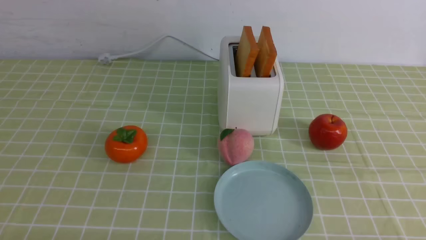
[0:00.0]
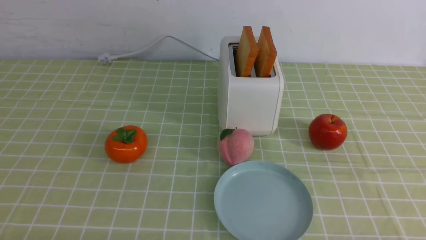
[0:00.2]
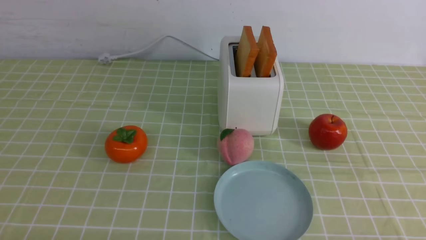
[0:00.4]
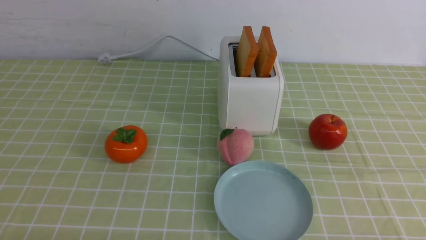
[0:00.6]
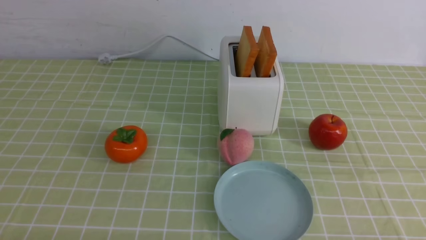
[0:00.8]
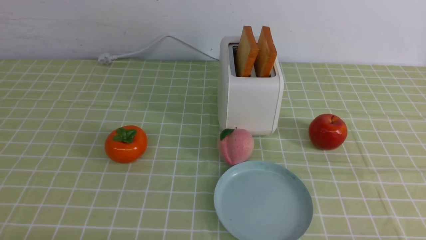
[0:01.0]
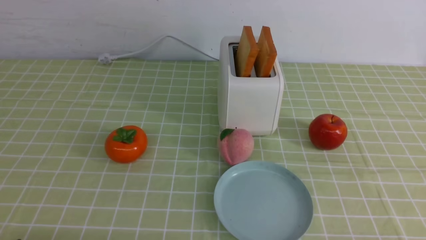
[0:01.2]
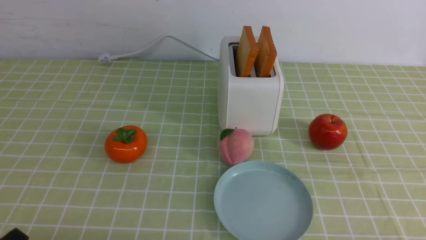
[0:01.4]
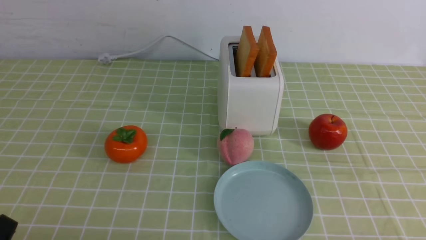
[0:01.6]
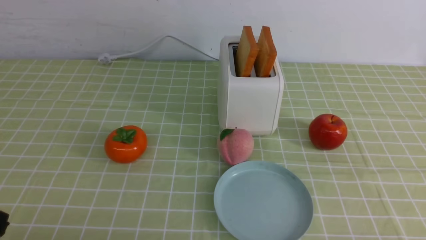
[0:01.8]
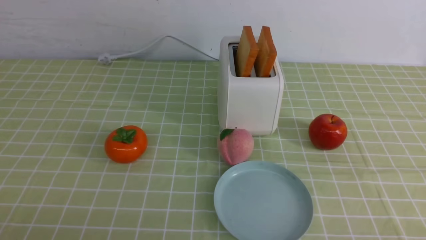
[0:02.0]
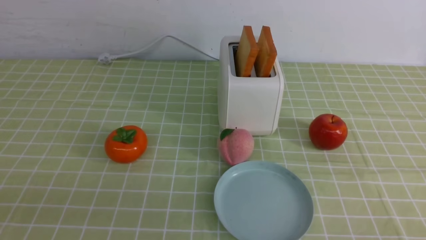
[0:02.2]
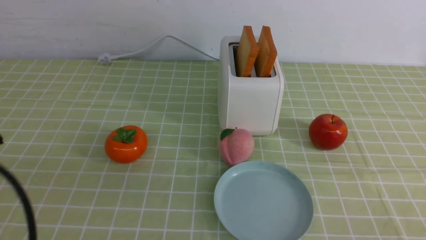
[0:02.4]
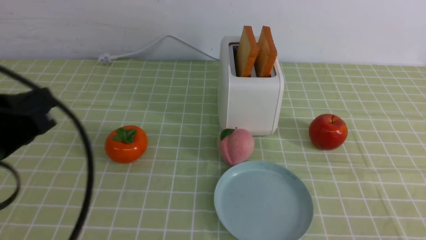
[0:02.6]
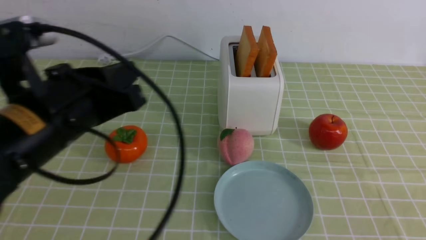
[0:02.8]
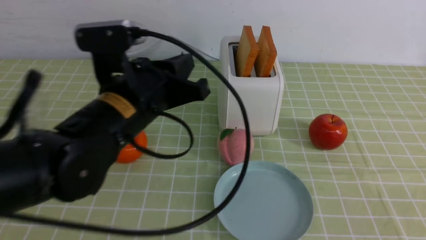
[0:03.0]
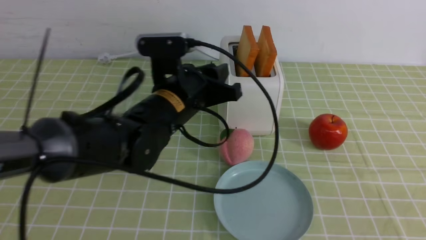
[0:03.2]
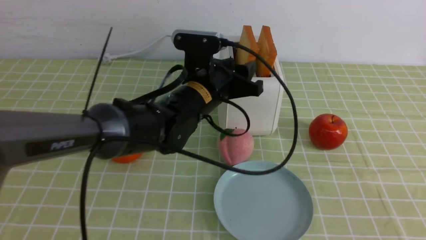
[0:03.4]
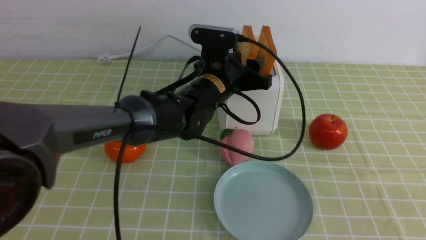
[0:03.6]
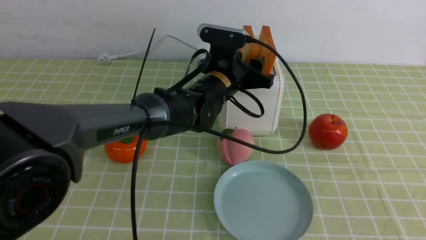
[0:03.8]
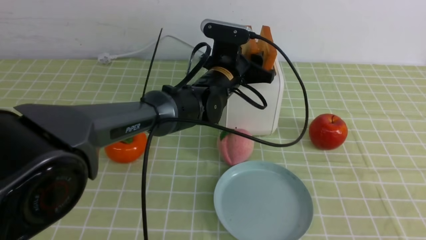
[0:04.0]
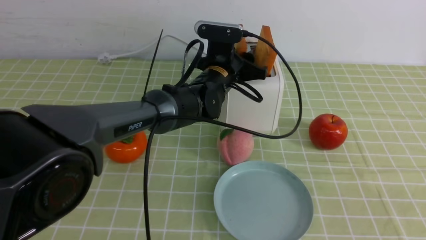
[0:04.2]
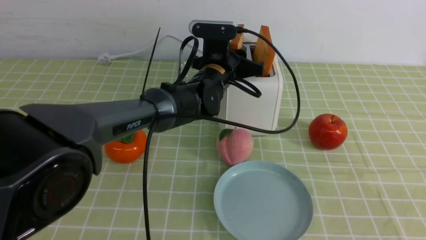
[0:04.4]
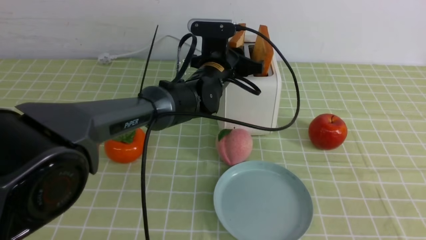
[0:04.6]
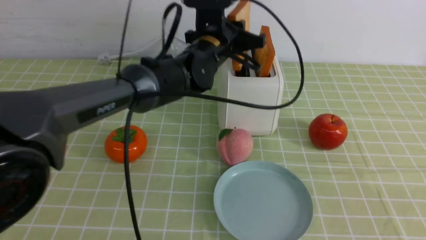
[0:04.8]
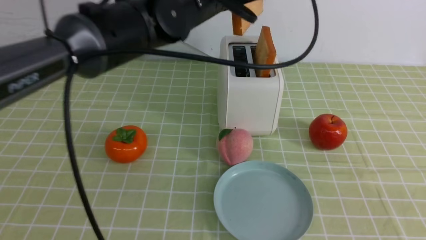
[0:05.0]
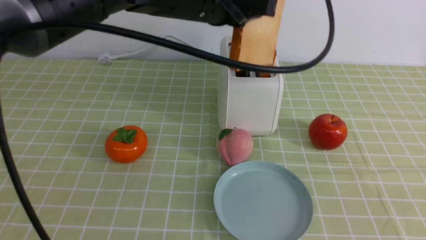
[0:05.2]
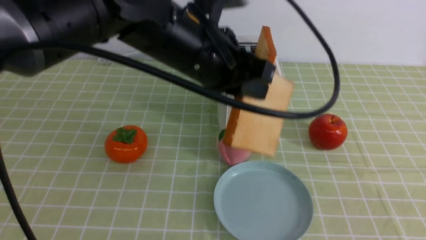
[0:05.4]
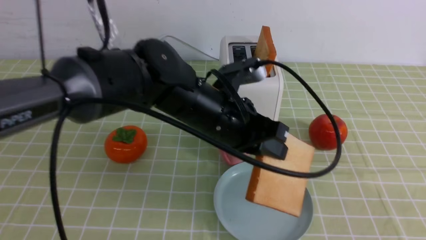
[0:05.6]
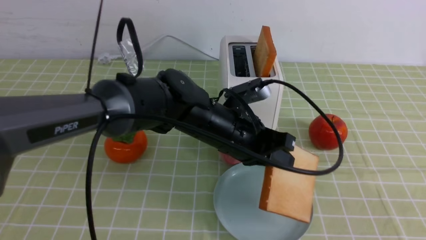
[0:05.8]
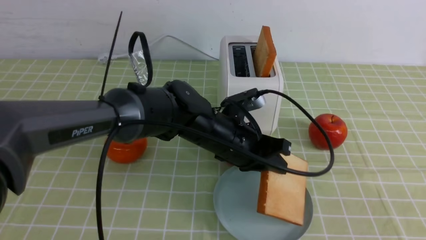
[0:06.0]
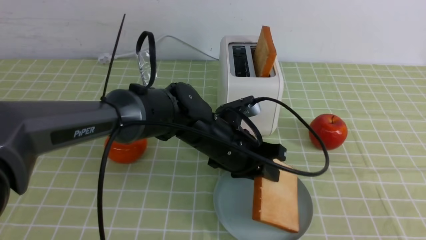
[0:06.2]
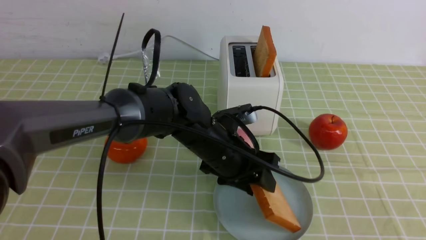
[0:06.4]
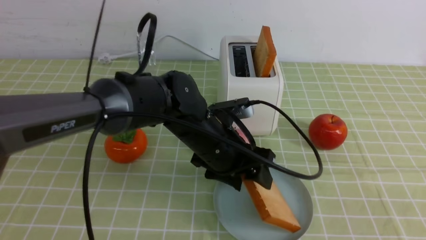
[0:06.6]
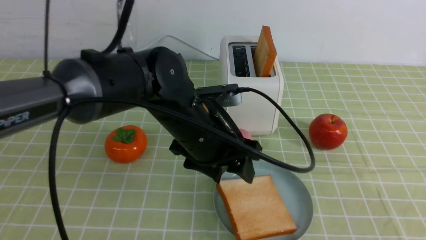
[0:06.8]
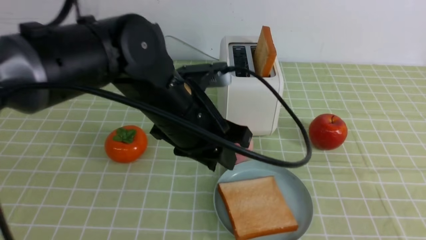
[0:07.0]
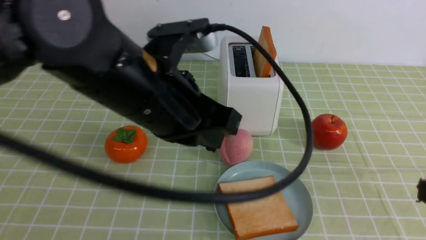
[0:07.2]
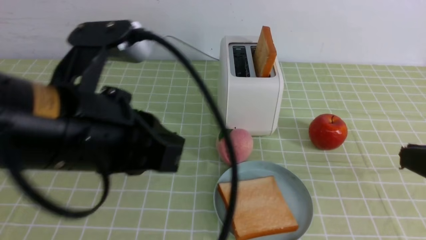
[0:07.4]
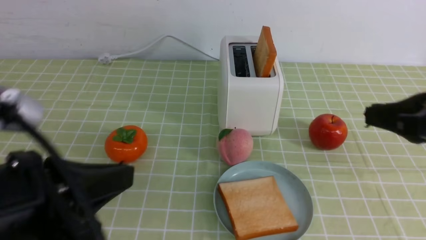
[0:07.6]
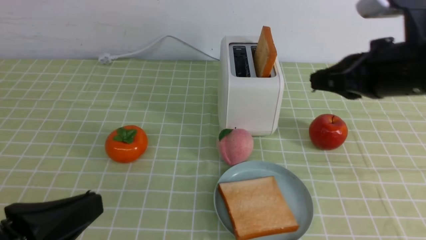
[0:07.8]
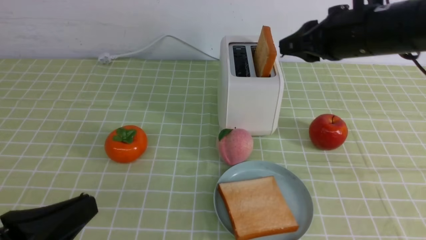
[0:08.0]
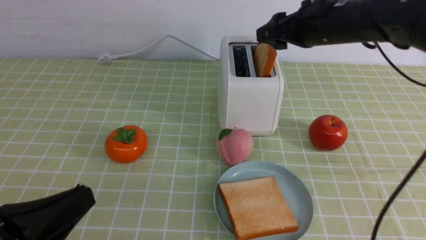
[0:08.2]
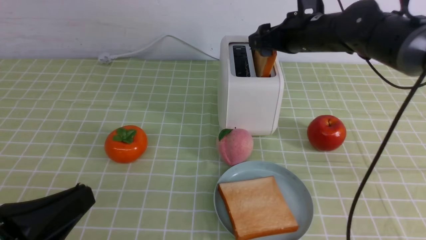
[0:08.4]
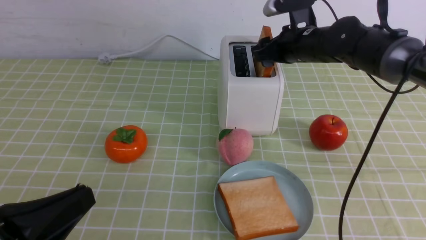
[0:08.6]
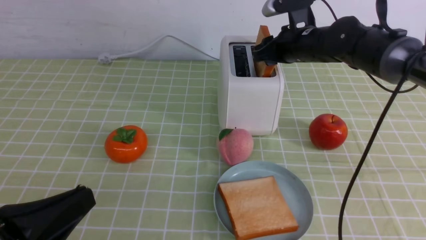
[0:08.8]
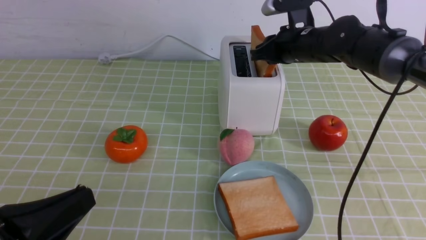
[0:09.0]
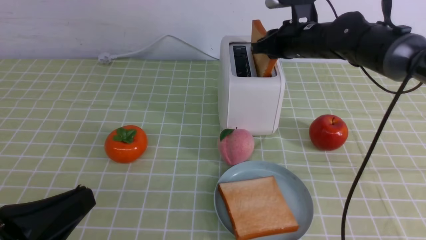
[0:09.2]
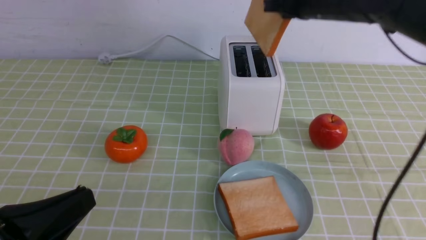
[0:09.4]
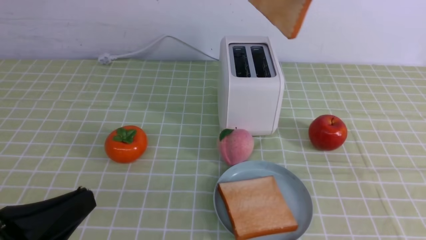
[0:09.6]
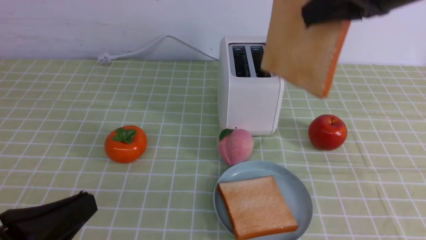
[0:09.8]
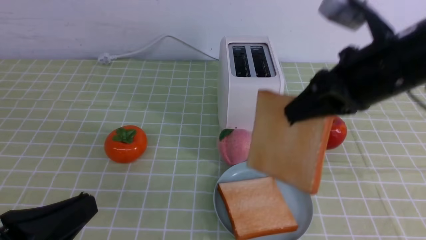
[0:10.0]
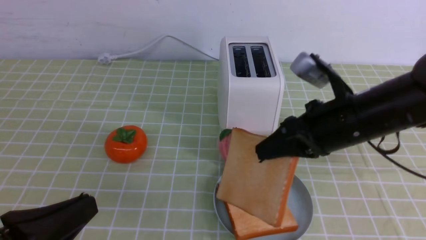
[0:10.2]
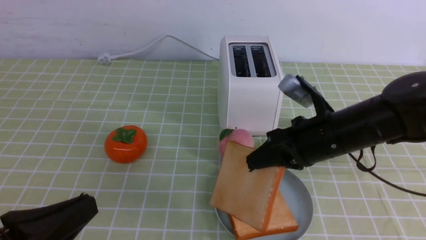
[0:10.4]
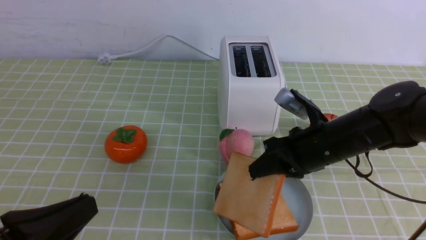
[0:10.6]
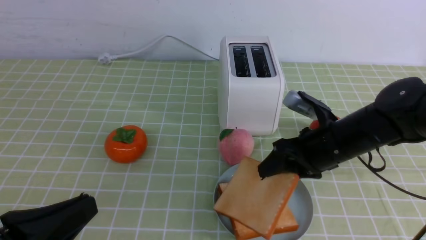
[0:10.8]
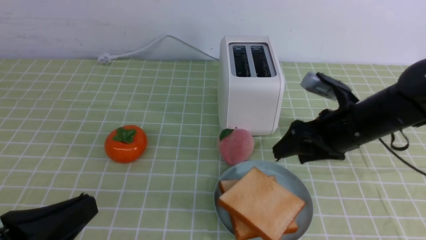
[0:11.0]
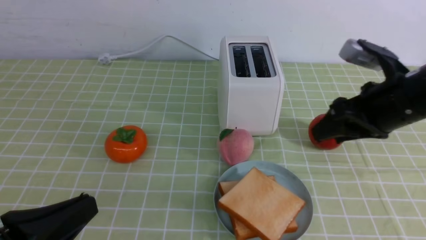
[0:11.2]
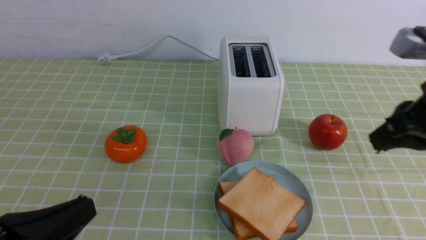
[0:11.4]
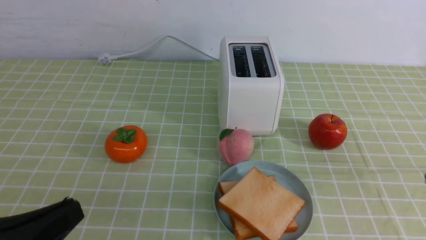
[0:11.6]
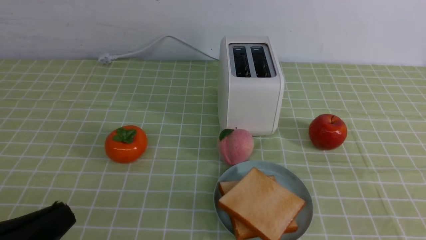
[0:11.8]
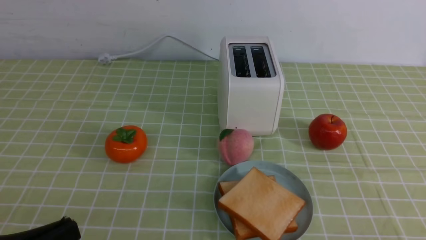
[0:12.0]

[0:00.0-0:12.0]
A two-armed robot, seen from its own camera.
Task of the whole recording: take toasted bread from bread machine on green coffee tablecloth place on plate.
Step, 0:00.0 to 0:04.8: use the left arm to take out a slice of bread.
Step, 0:05.0 to 0:06.8: use the left arm to put a slice of bread into the empty plate.
Step, 0:07.0 to 0:09.4: use the right arm to take out a slice of bread.
Step, 0:09.6 to 0:11.0: use the right arm to put a slice of bread into the plate.
0:01.6 to 0:03.0: The left gripper moves forward, to the right and upward, roughly 30 cm; the right gripper shifts approximately 15 cm upward, and closes its fingers.
0:03.0 to 0:04.4: The left gripper goes approximately 20 cm forward and to the right, and opens, then closes once more.
0:04.4 to 0:06.0: The left gripper is displaced backward by approximately 15 cm, and moves some 15 cm upward and comes back.
0:06.0 to 0:07.6: The right gripper is displaced forward by about 15 cm. The left gripper goes about 30 cm backward, to the left and upward, and opens, then closes again.
0:07.6 to 0:09.0: The right gripper moves forward, about 25 cm, and opens and closes again. The left gripper goes roughly 5 cm downward.
0:09.0 to 0:10.4: The right gripper travels backward by about 20 cm, and moves approximately 15 cm upward and comes back.
0:10.4 to 0:12.0: The right gripper is displaced backward and to the right by roughly 30 cm, and opens, then closes once more.

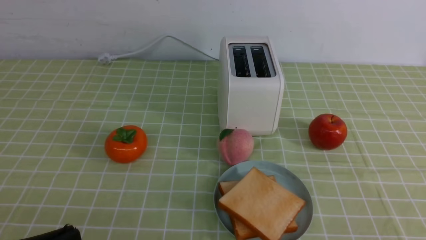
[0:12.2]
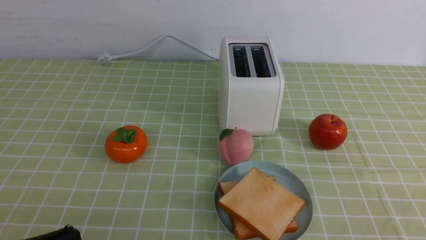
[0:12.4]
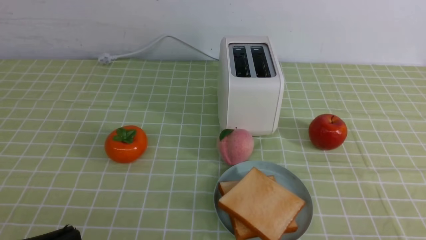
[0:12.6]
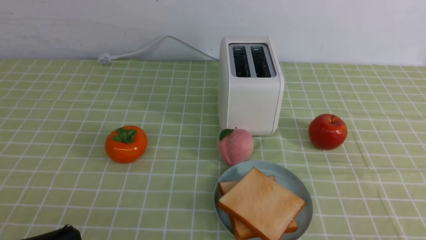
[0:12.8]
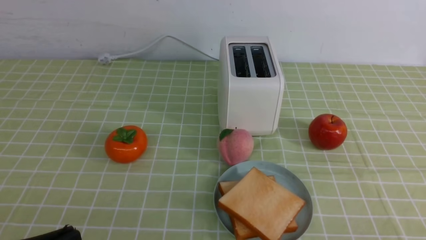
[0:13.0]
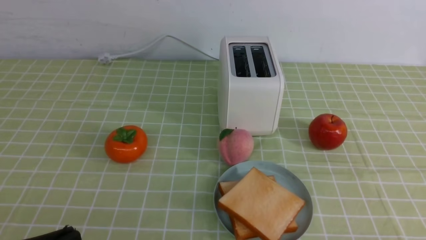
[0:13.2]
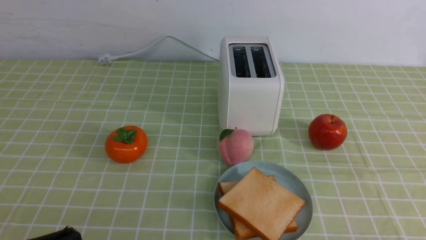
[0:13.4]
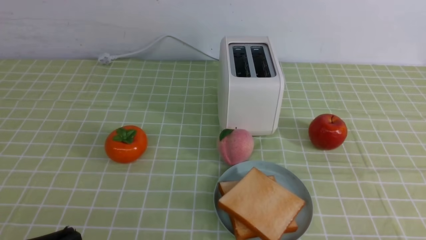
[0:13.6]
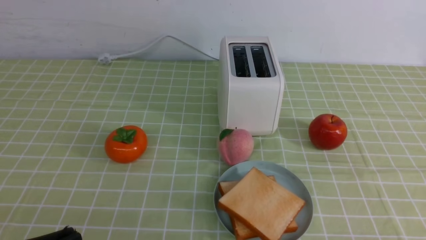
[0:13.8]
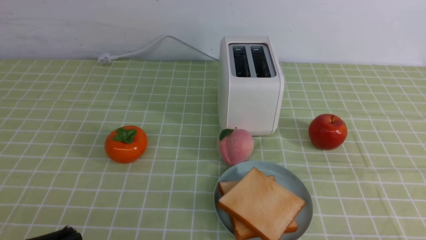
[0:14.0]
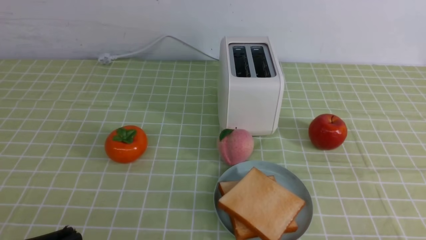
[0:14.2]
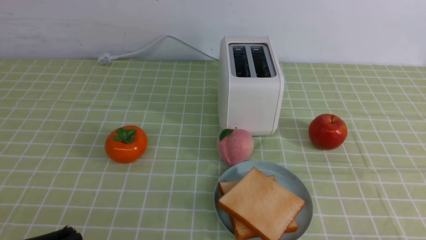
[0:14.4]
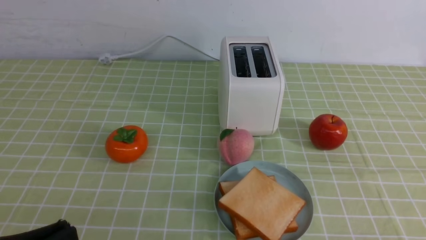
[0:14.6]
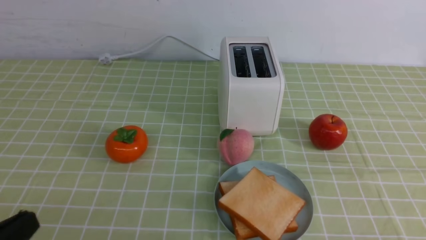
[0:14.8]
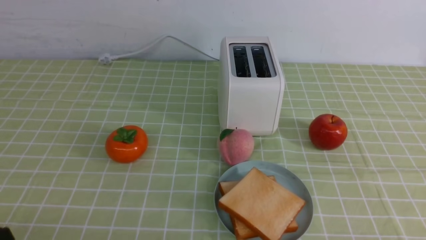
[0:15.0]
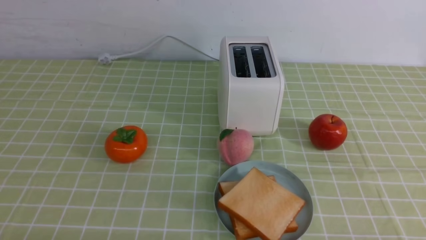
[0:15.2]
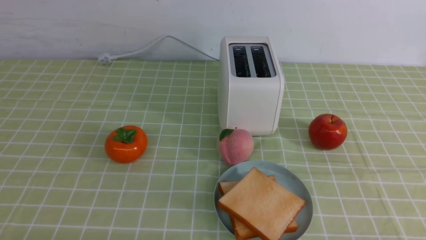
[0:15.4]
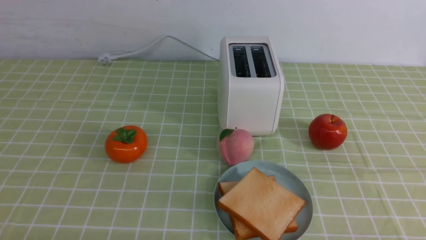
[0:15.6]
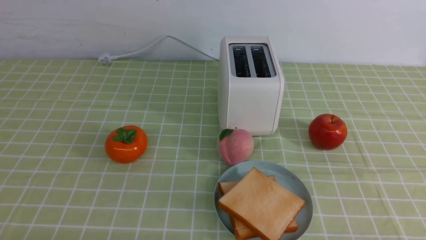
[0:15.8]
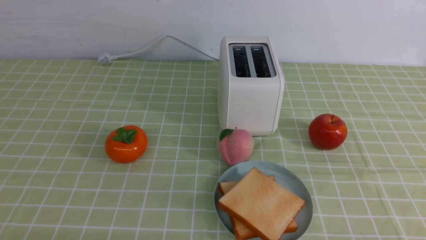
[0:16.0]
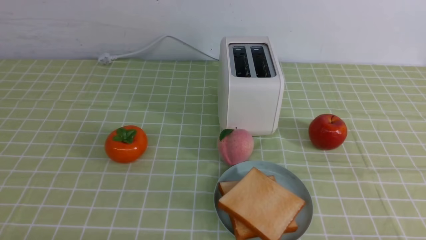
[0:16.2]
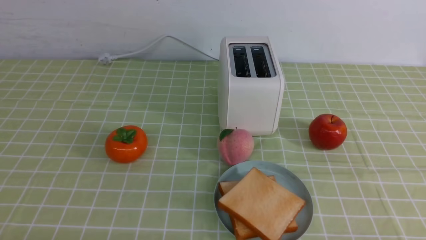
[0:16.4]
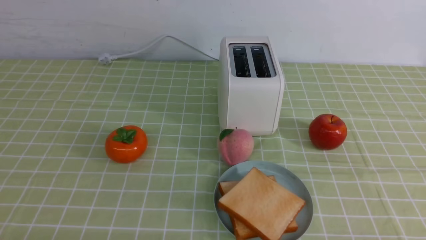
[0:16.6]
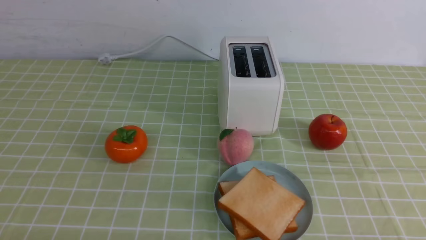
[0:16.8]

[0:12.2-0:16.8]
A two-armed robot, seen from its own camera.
Task of the whole recording: take toasted bread from bread machine on green coffee tablecloth place on plate.
0:15.2 to 0:16.8: Neither gripper changes place.
